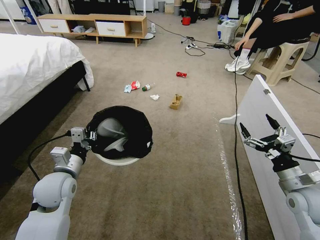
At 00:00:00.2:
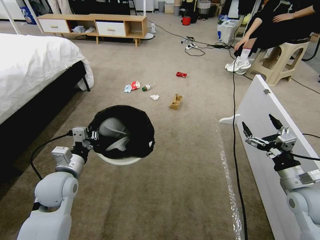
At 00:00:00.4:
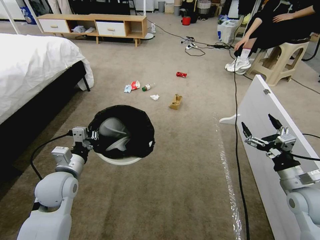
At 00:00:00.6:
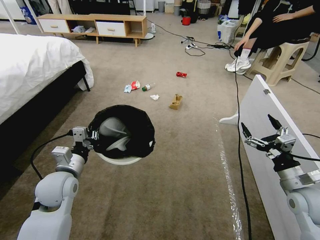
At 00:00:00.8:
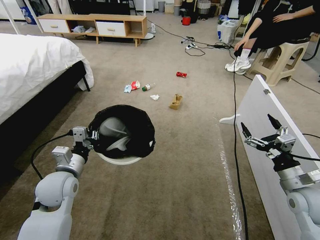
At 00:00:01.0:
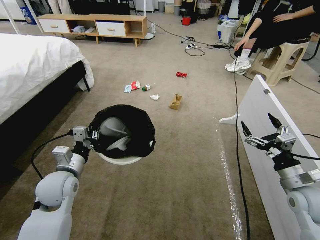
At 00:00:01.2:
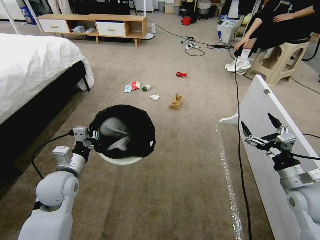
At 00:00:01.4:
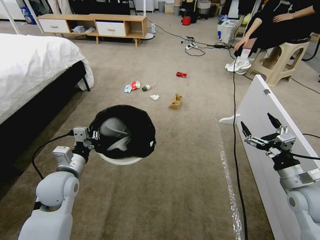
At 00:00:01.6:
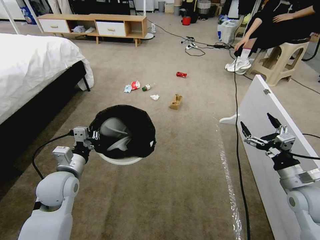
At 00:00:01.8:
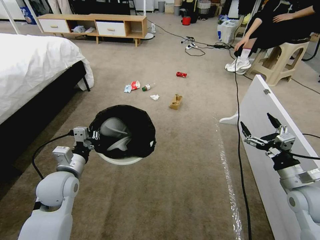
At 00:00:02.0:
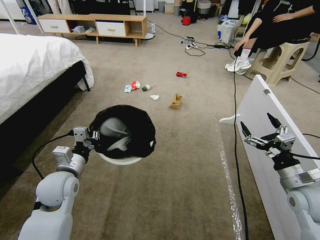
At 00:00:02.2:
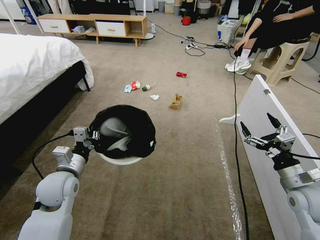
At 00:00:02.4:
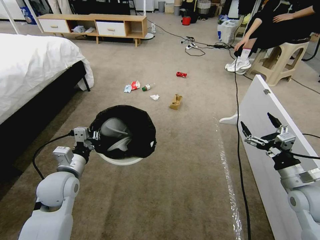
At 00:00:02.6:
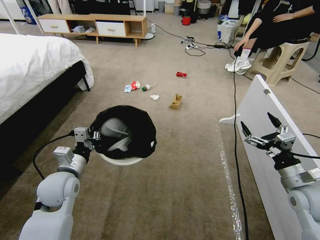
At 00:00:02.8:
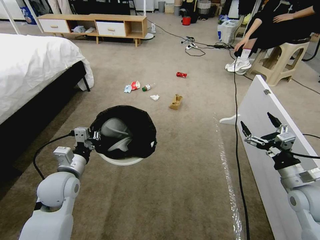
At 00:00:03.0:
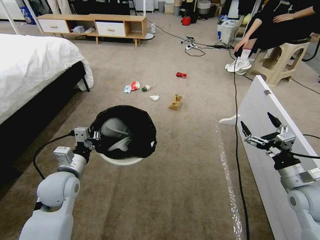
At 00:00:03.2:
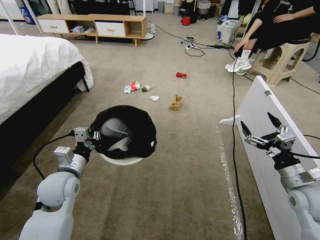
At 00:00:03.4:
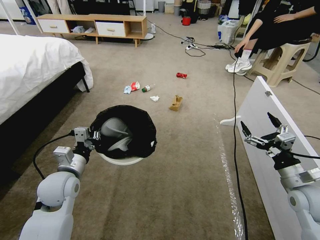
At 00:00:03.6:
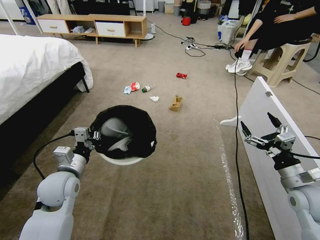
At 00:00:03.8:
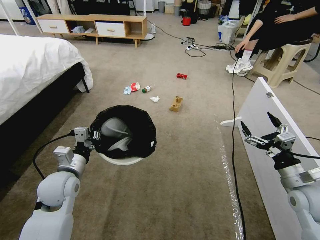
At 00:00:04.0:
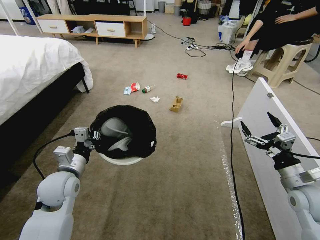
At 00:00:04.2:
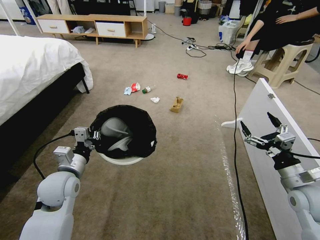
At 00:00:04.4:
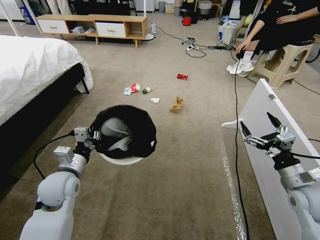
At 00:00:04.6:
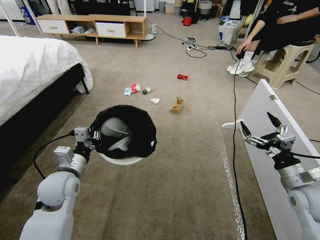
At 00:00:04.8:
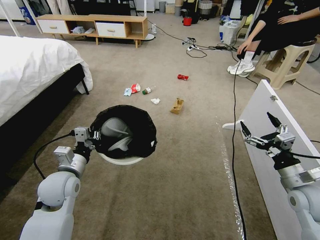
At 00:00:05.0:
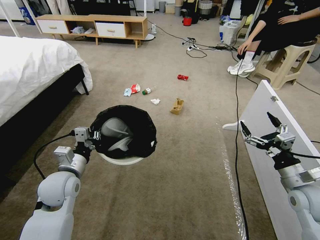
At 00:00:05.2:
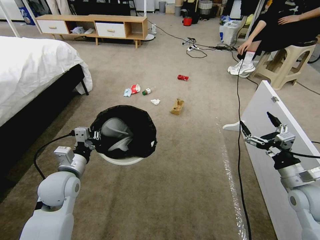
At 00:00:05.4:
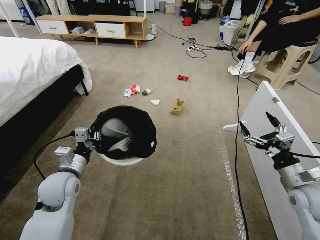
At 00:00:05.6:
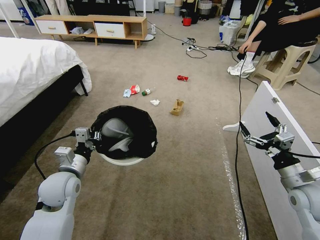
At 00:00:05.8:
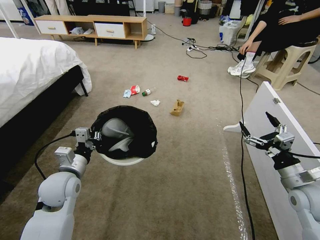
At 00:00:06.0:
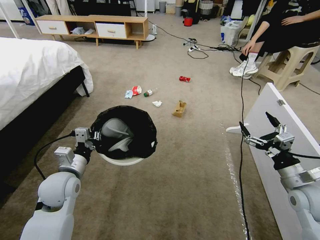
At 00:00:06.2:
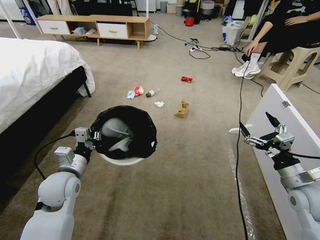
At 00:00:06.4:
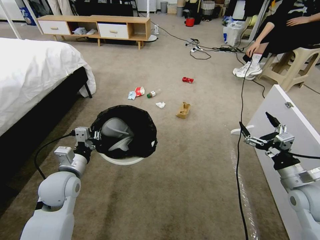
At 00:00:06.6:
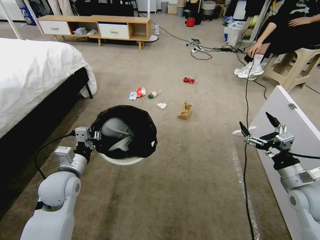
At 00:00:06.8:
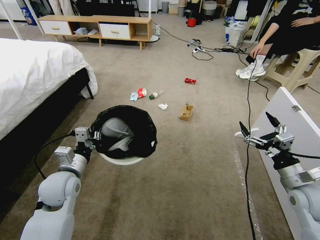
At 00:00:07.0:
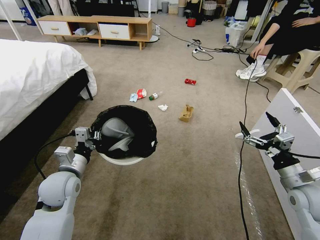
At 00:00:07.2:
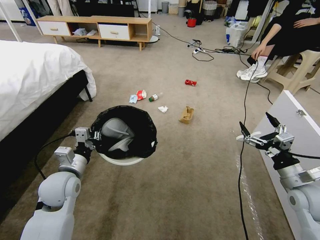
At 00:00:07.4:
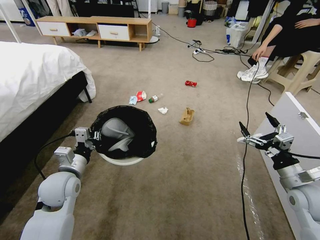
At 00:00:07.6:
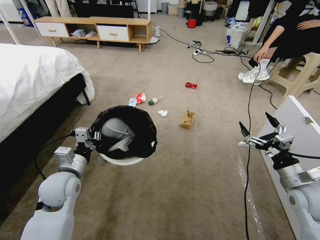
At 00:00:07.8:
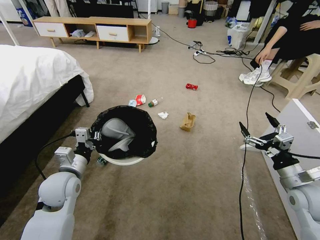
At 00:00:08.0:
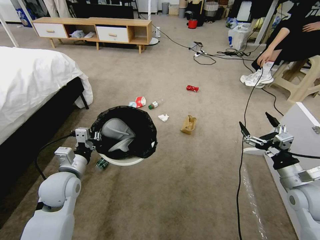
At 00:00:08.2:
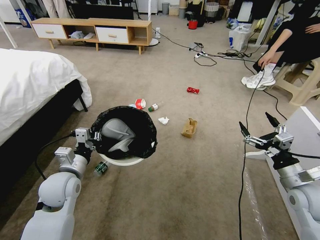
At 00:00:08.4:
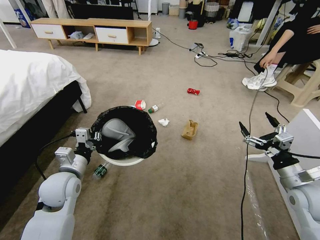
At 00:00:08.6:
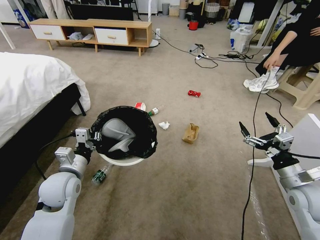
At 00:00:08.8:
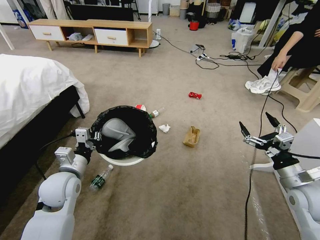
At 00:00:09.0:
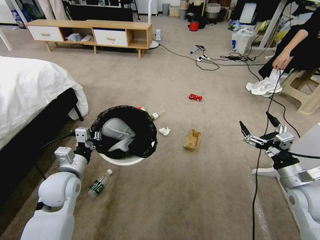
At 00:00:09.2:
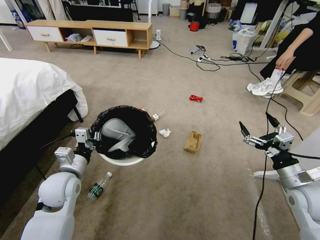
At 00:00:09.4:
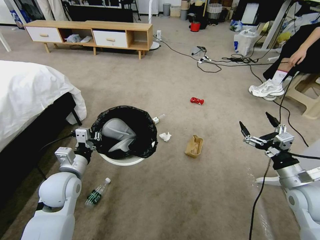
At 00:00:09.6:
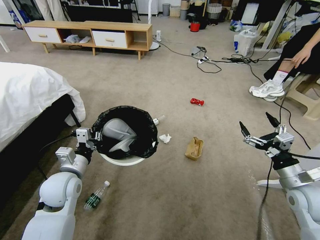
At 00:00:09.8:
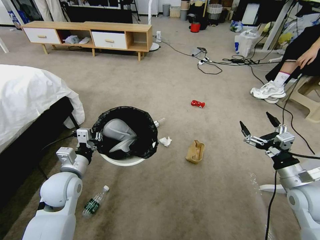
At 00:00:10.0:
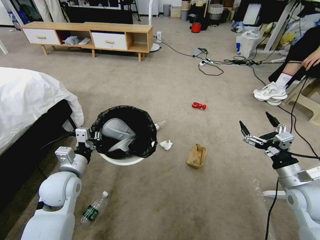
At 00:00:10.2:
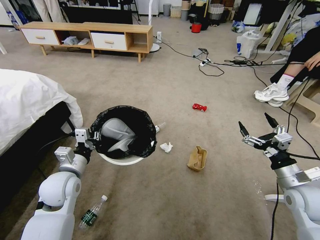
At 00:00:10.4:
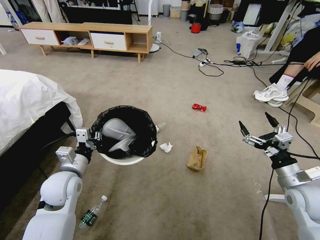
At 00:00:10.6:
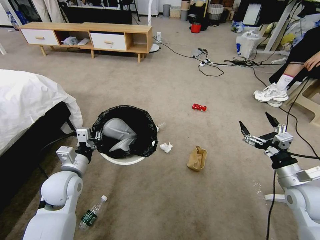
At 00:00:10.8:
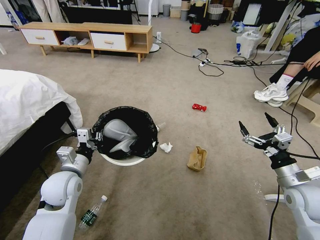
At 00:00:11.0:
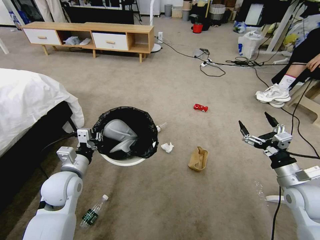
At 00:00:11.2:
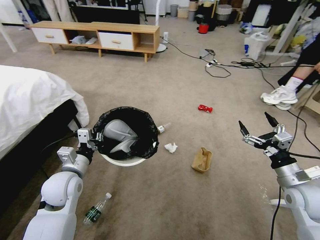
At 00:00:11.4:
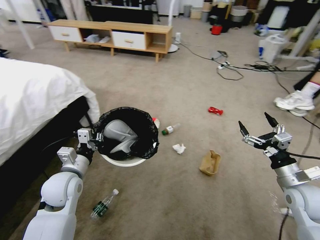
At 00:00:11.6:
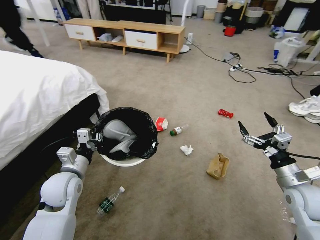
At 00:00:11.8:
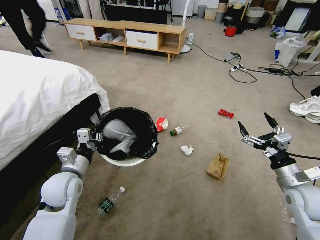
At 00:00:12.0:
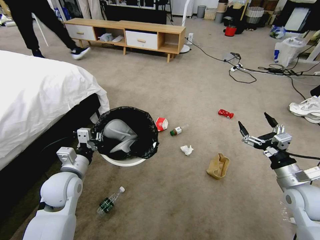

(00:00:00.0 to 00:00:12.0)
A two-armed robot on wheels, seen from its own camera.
Task of the whole recording: Pick up the trash bin and place the garbage on the floor into it.
00:00:01.6 - 00:00:06.0: The two grippers keep their place.

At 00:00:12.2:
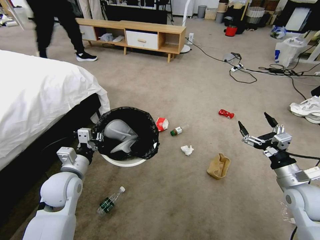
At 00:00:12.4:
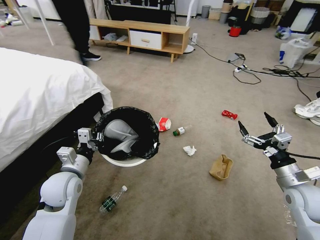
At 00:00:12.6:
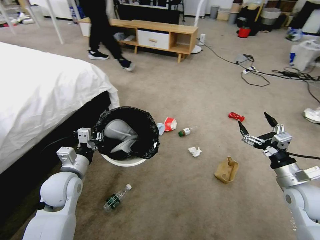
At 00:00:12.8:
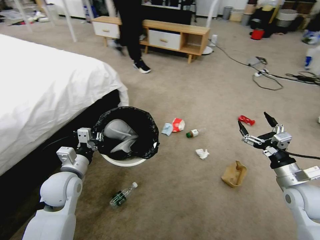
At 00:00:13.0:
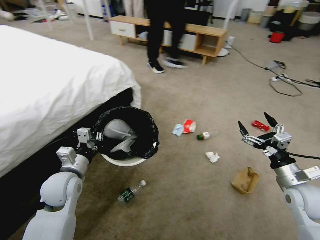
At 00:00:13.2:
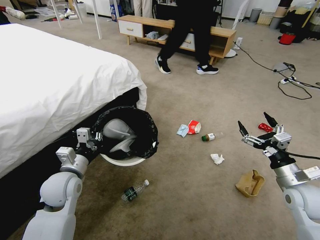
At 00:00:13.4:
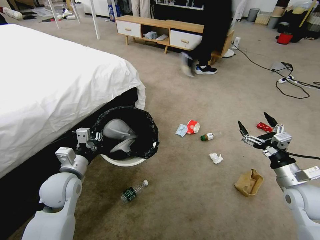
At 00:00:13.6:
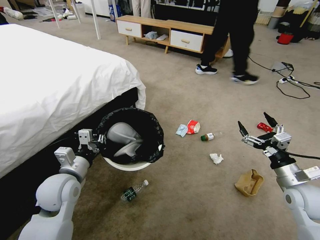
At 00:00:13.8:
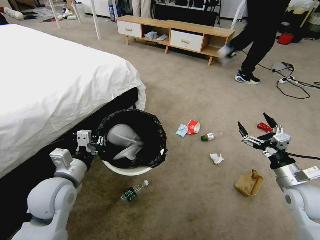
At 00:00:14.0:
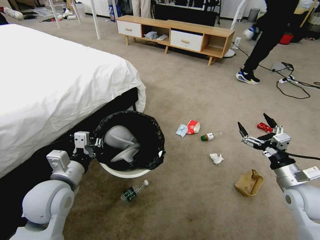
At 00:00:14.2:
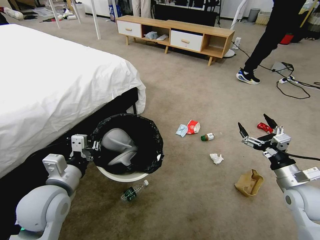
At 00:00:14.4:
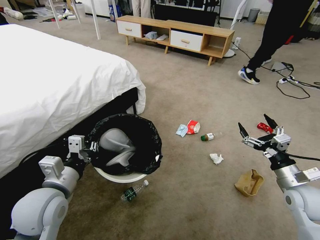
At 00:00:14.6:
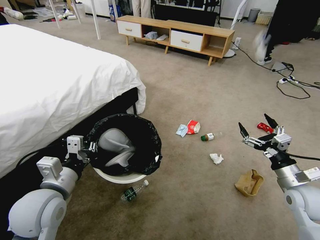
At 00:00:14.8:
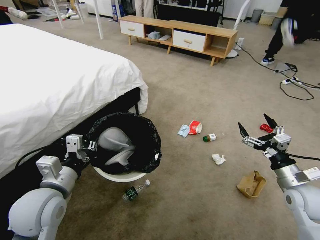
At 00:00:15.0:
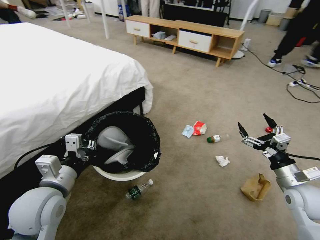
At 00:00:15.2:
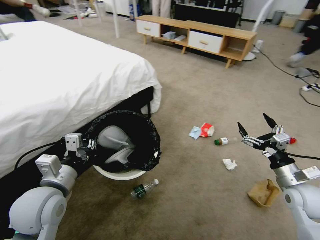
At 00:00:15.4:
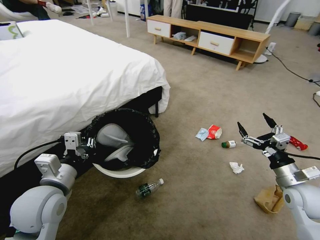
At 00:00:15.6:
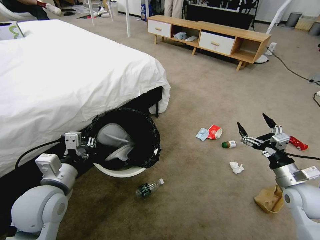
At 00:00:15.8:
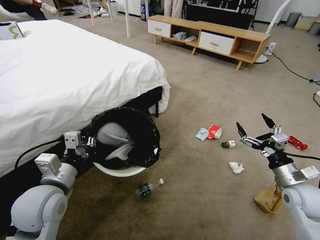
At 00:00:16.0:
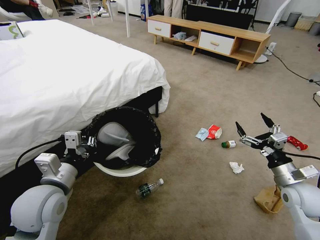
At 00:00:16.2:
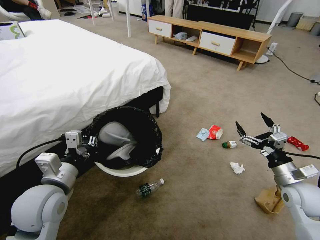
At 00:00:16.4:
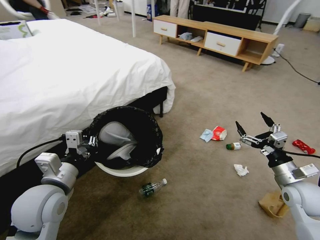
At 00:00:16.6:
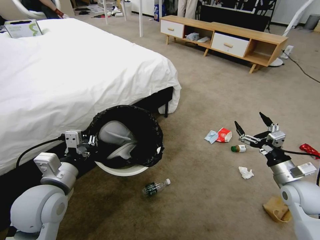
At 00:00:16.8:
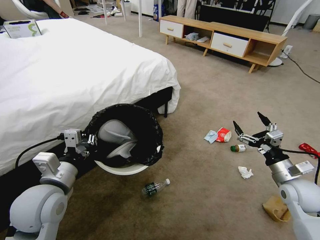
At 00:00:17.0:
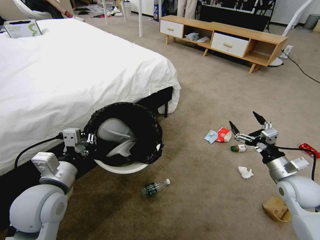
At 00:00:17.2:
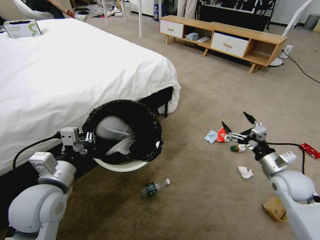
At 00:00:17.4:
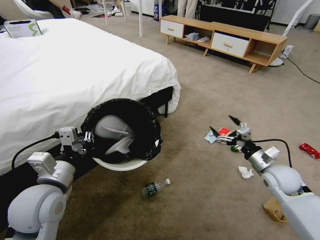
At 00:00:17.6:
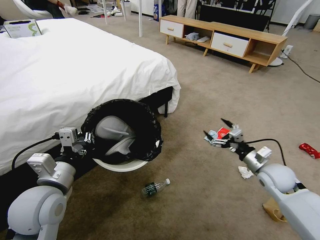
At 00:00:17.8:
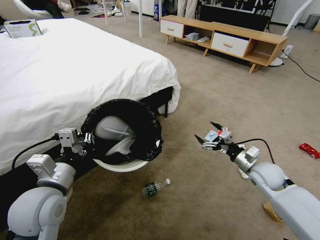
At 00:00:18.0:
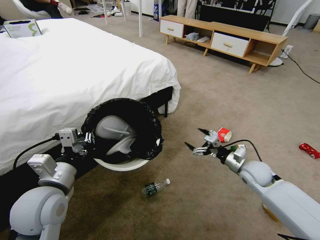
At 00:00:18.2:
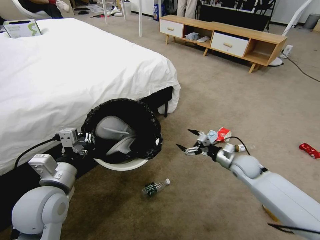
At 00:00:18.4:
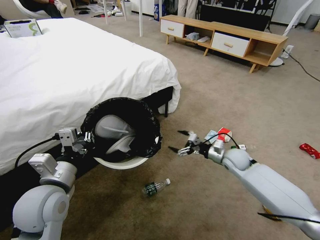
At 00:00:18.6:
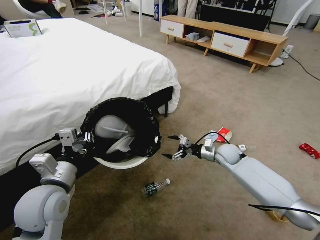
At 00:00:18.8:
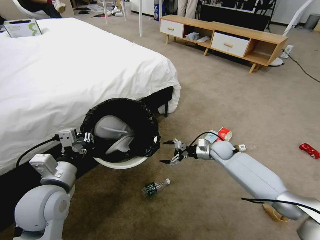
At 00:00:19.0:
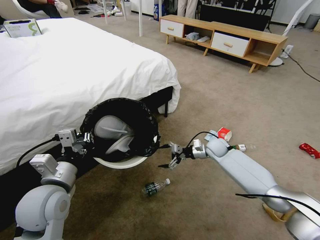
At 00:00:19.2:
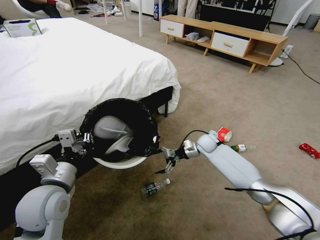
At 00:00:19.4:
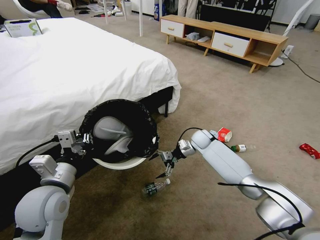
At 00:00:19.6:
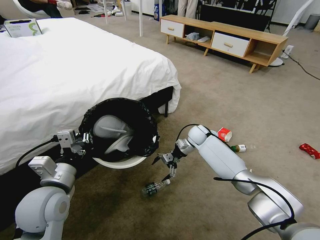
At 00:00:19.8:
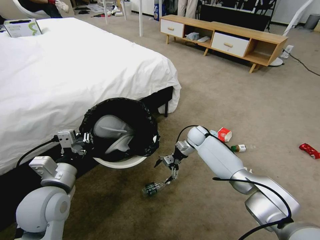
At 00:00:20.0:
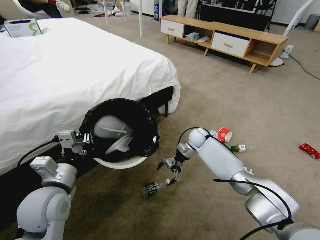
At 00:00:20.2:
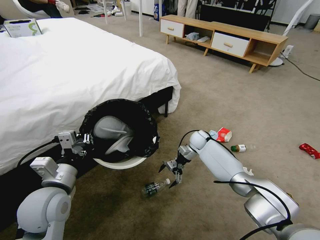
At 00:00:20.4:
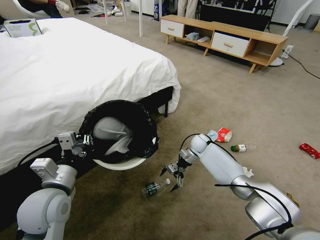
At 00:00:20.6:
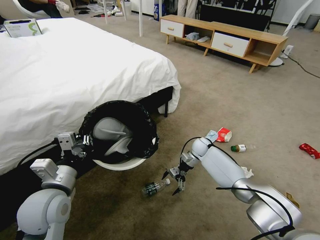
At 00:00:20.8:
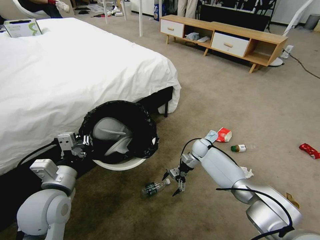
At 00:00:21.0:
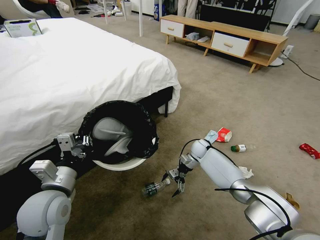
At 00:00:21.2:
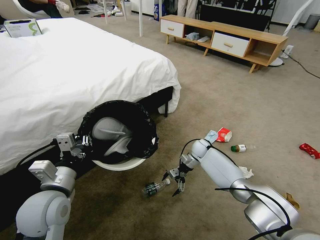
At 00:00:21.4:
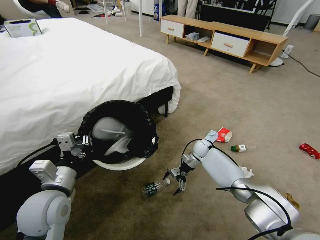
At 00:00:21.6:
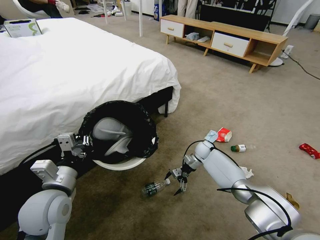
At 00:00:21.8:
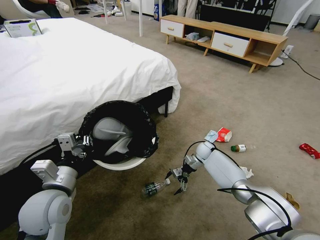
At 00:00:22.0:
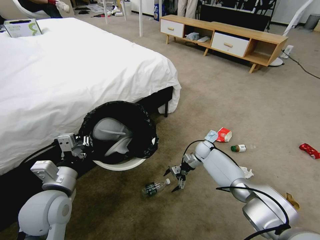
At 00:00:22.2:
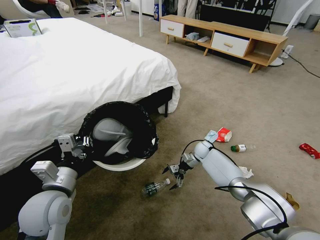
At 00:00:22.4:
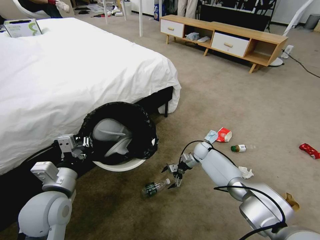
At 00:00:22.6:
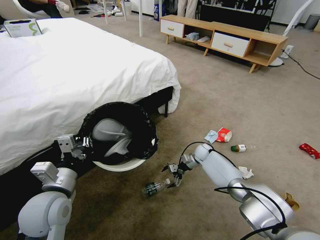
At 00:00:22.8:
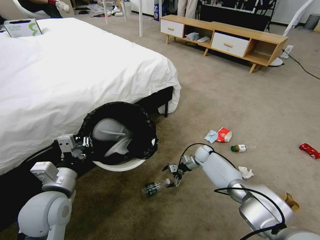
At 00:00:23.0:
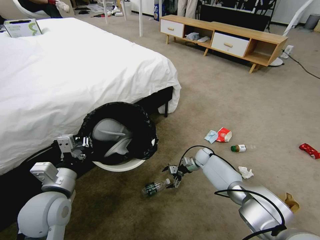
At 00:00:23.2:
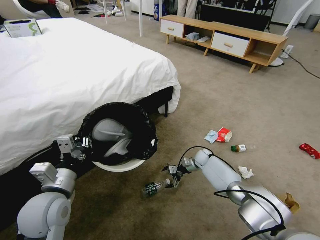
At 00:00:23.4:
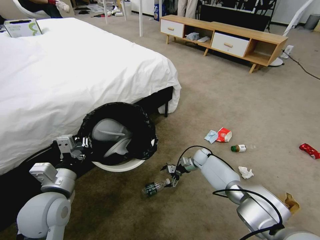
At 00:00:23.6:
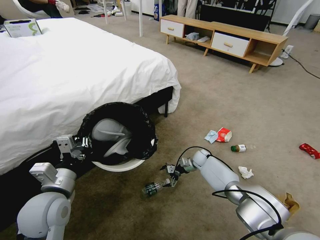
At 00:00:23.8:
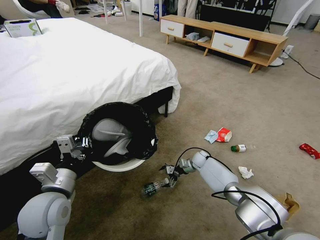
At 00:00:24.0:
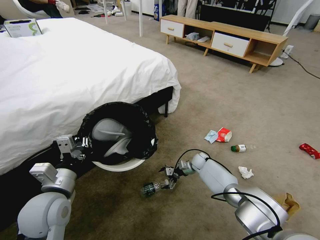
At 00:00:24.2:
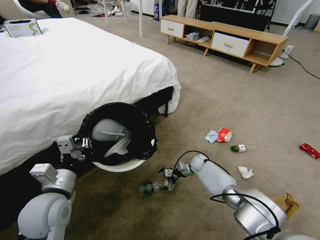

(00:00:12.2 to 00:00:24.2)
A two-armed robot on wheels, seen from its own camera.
Task of the whole recording: Pick up the trash bin and place the garbage on the floor into it.
00:00:12.2 - 00:00:13.8: The left gripper shifts by some 5 cm.
00:00:16.6 - 00:00:18.2: The right gripper shifts roughly 15 cm forward, to the left and downward.
00:00:18.2 - 00:00:19.8: The right gripper shifts roughly 25 cm forward and to the left.
00:00:19.8 - 00:00:21.2: The right gripper heads downward, covering about 5 cm.
00:00:21.2 - 00:00:22.6: The grippers move only a little.
00:00:22.6 - 00:00:24.2: The right gripper moves about 5 cm.
